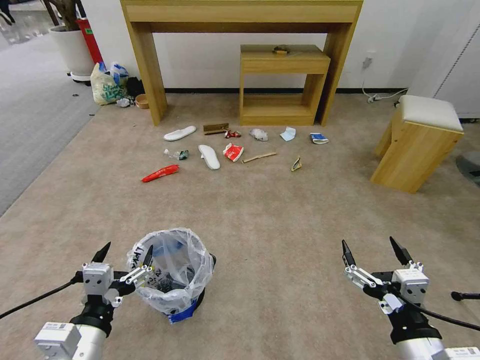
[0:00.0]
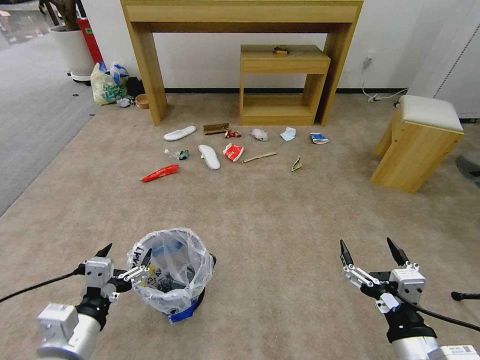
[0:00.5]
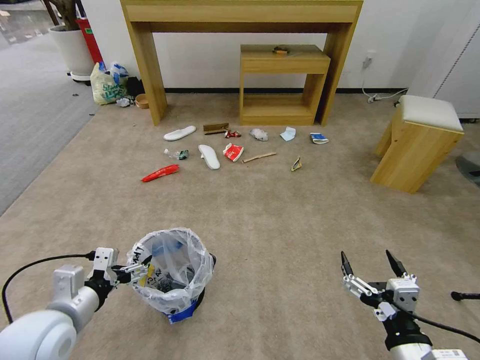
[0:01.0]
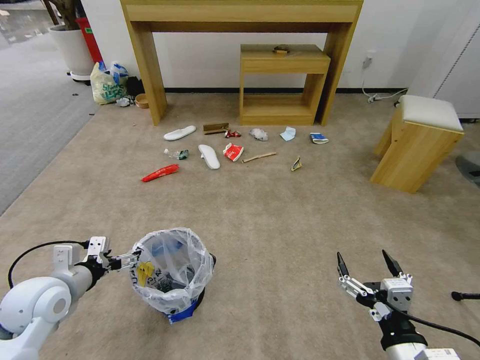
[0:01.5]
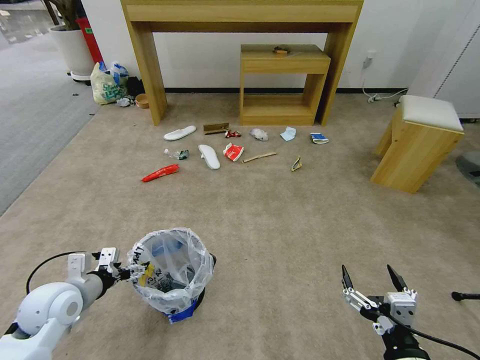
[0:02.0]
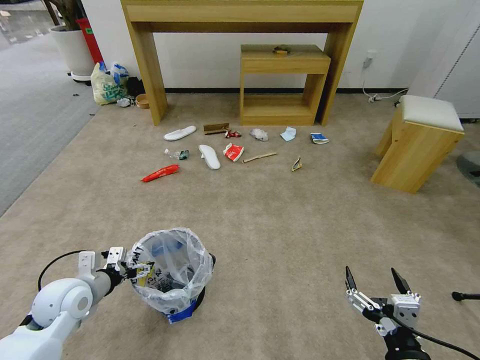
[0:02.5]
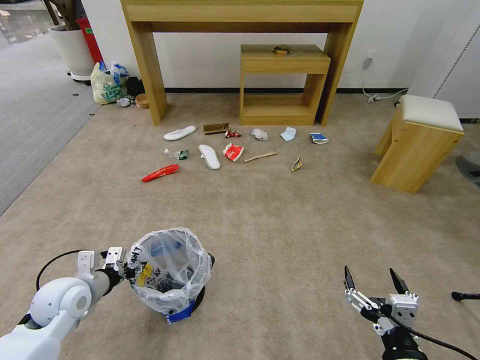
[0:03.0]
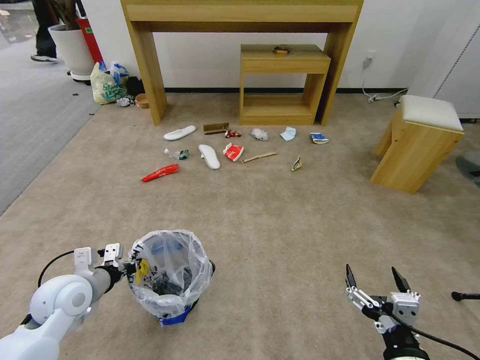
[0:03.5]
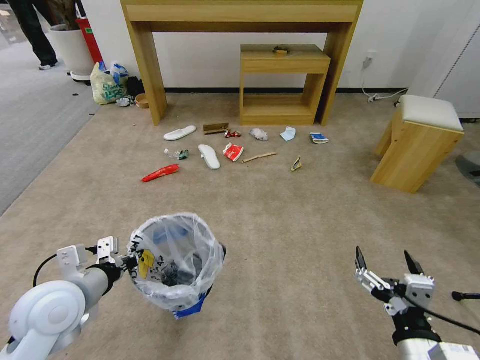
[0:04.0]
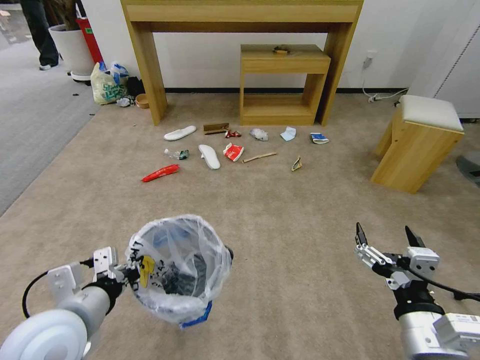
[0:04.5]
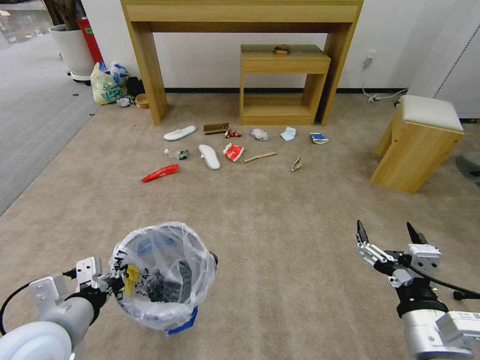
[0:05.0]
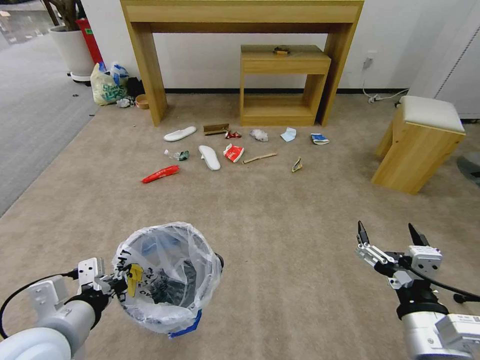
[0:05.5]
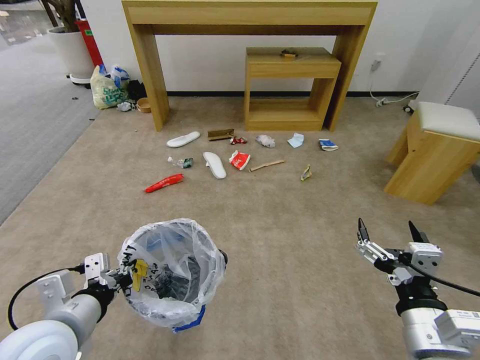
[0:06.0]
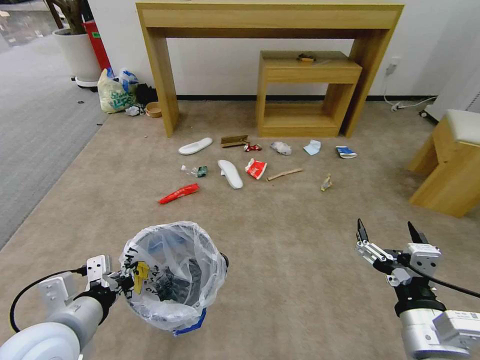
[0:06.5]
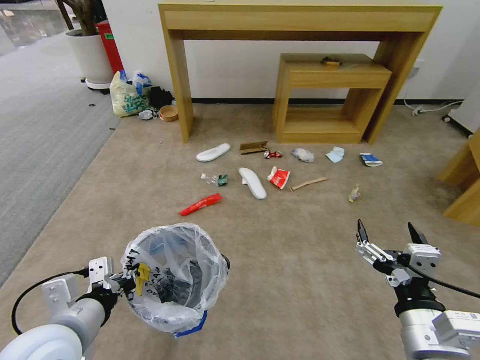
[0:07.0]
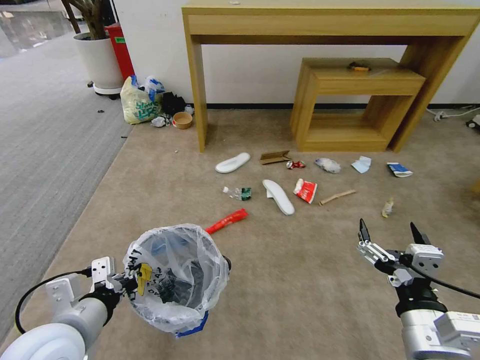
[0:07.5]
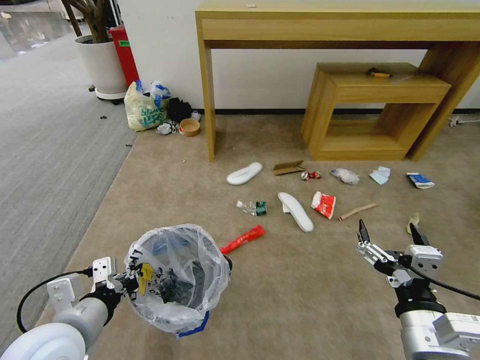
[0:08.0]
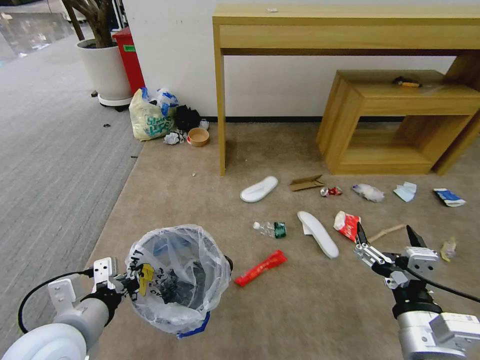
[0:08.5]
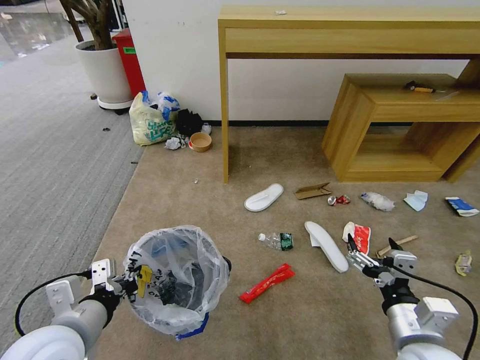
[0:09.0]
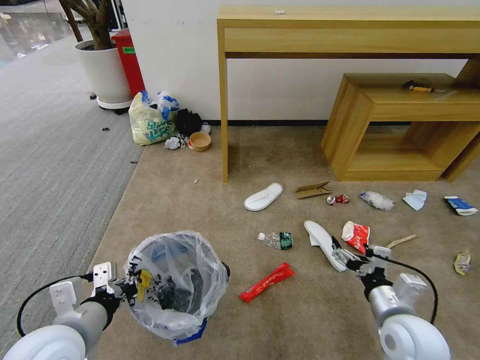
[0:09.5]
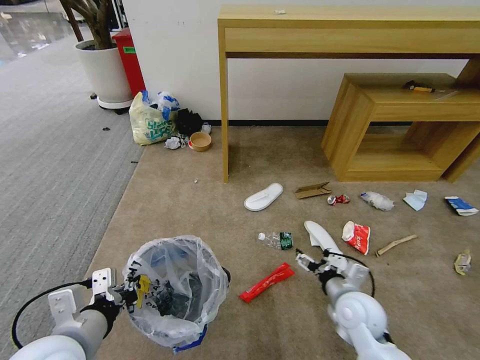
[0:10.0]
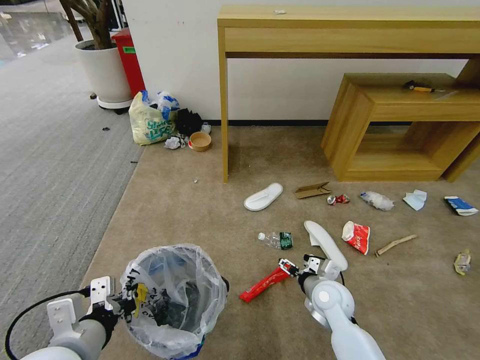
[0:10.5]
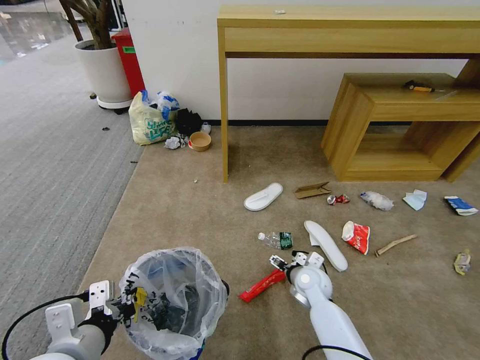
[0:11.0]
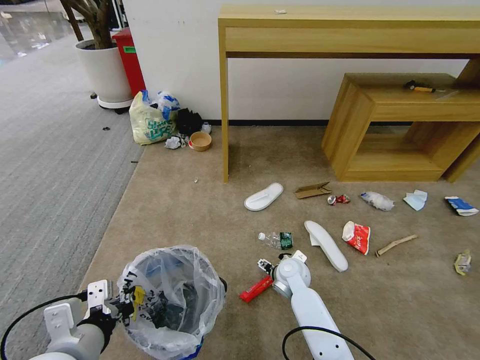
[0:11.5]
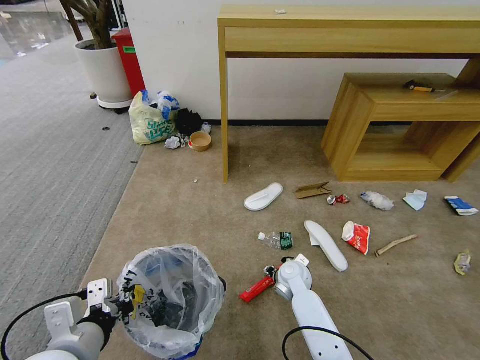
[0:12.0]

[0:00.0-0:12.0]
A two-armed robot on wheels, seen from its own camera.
Task of the whole recording: Pick up the trash bin and place the garbage on the floor into it.
0:02.0 to 0:04.0: The left gripper heads upward and to the right, covering roughly 10 cm, and closes its fingers.
0:04.0 to 0:06.0: The right gripper goes about 5 cm upward, while the left gripper heads backward, covering roughly 5 cm.
0:08.0 to 0:10.0: The right gripper heads forward and downward, covering approximately 20 cm.
0:10.0 to 0:12.0: The right gripper moves forward, to the left and downward, roughly 20 cm, and closes up.

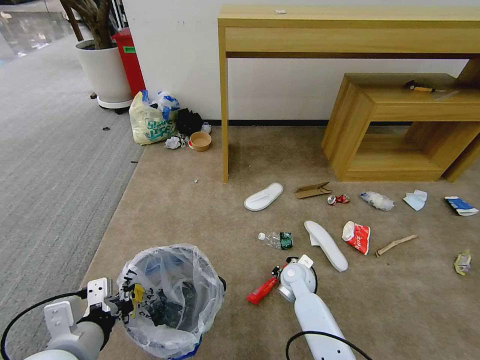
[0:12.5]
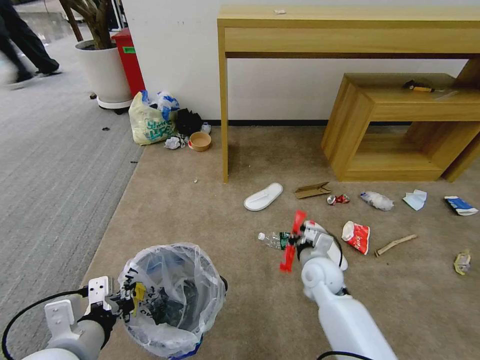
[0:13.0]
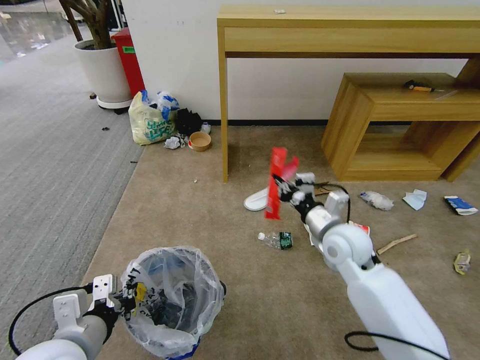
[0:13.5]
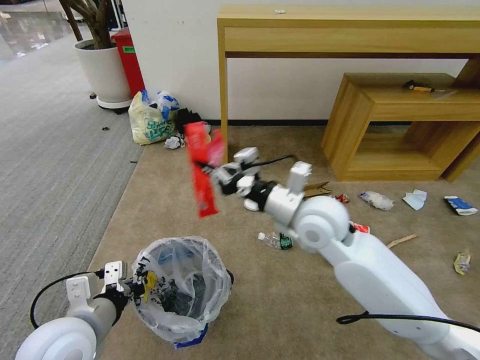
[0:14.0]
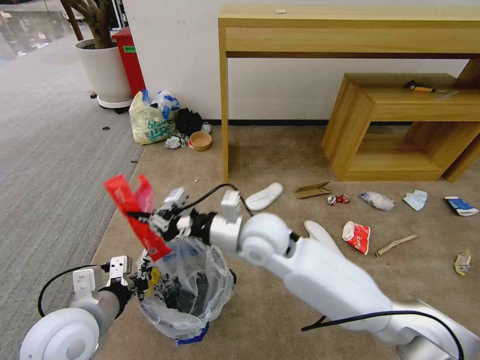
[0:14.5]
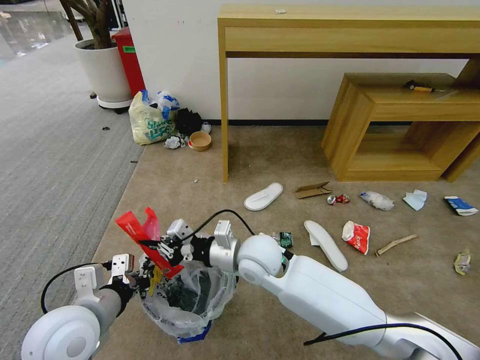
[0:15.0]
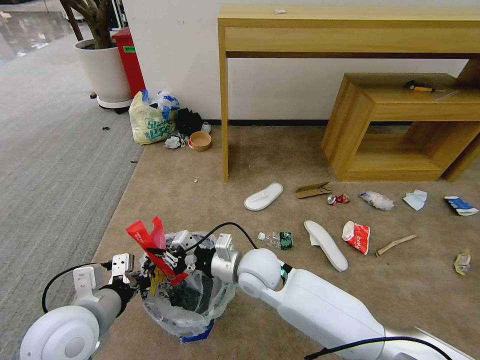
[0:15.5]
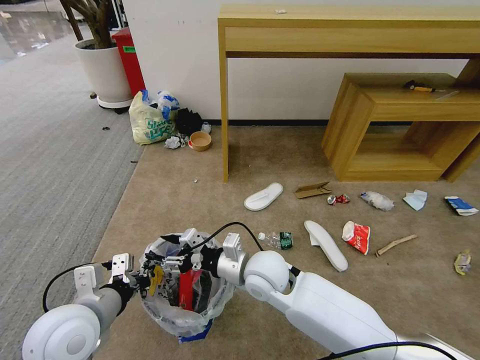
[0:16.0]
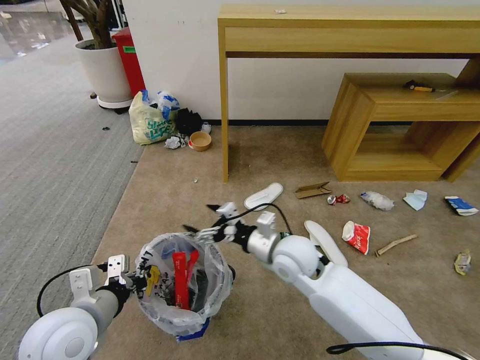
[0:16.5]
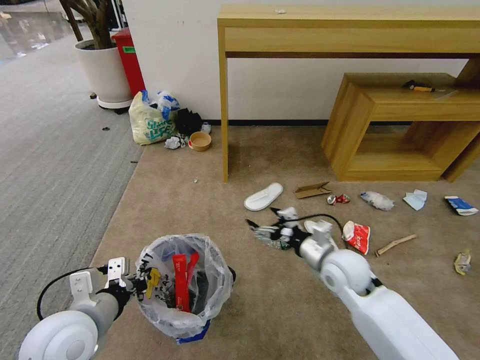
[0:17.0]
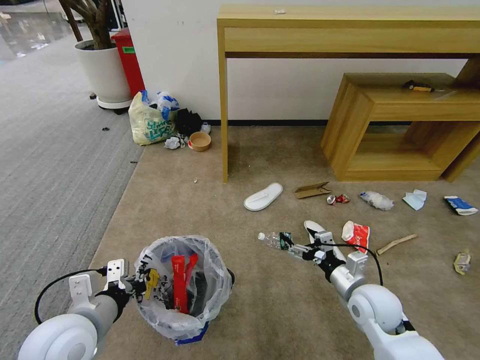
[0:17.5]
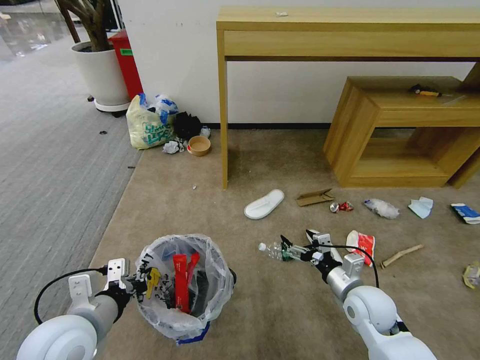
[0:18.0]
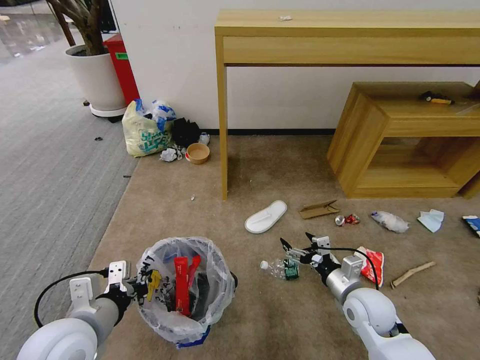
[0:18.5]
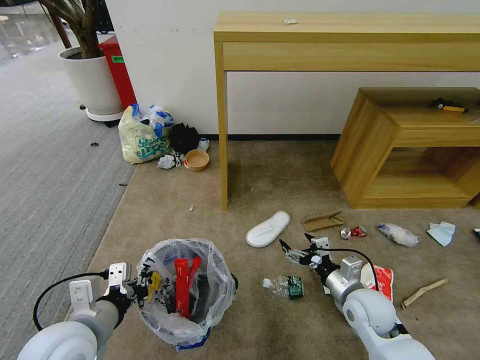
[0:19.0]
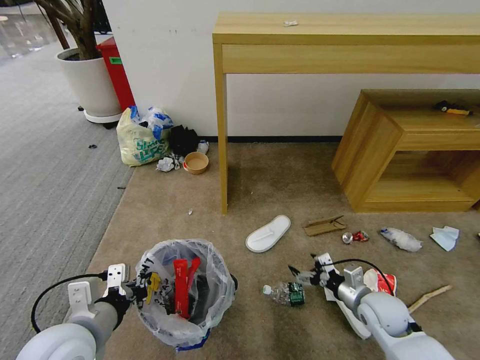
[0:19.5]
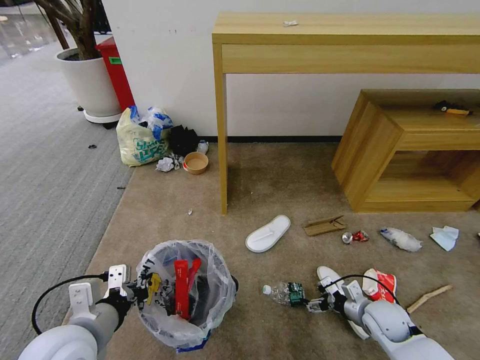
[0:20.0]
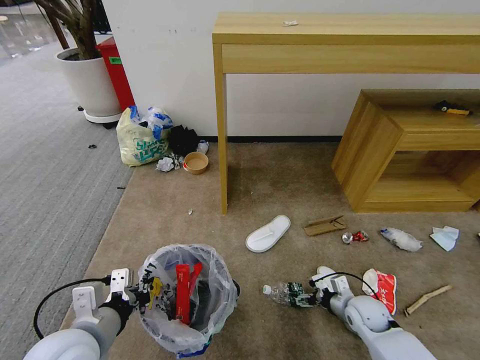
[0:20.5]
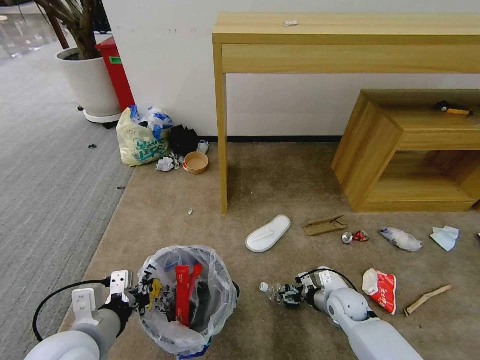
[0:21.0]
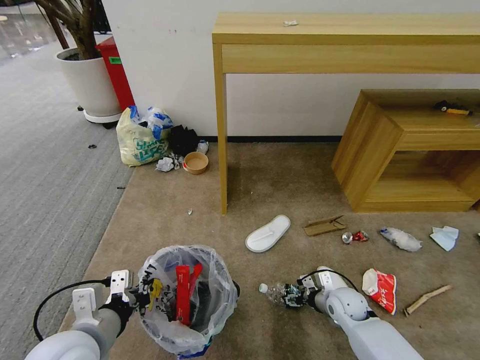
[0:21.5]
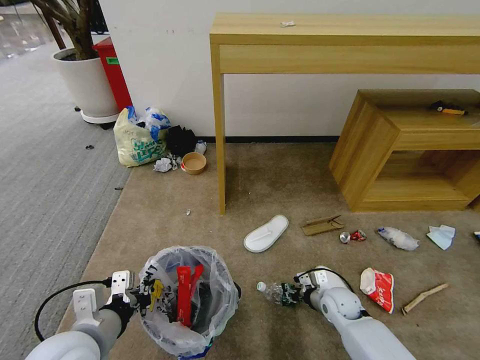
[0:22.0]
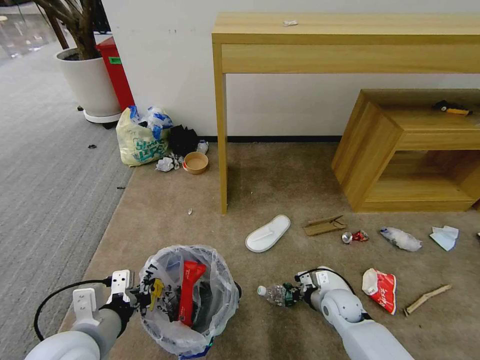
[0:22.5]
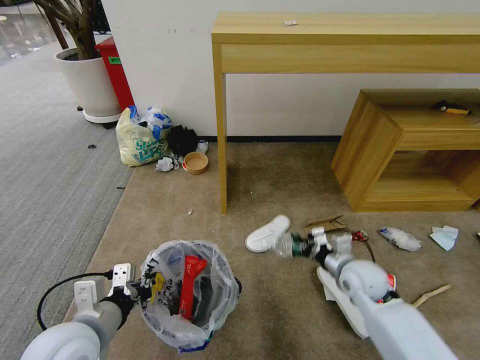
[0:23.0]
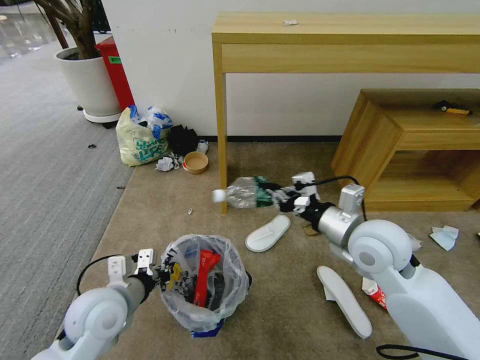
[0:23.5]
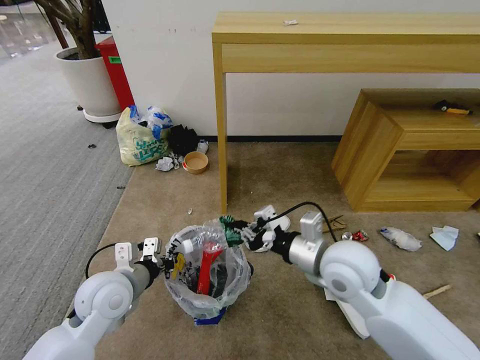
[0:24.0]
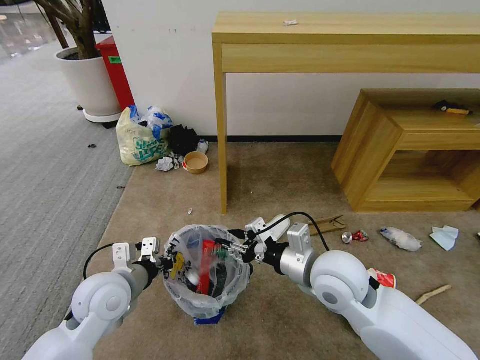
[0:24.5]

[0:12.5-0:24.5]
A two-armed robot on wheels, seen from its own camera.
Task of the whole recording: Pick up the trash bin and place the garbage on the floor into it.
0:12.5 to 0:14.5: The left gripper moves forward, roughly 5 cm. The right gripper shifts roughly 30 cm upward and to the left.
0:14.5 to 0:16.5: The right gripper goes roughly 10 cm downward and to the right, and opens.
0:16.5 to 0:18.5: The right gripper travels to the right and downward by some 20 cm.
0:18.5 to 0:20.5: The right gripper travels downward by some 10 cm.
0:20.5 to 0:22.5: The right gripper goes roughly 5 cm to the left, and closes up.
0:22.5 to 0:24.5: The right gripper shifts roughly 30 cm upward and to the left, and opens. Meanwhile the left gripper goes approximately 10 cm forward.

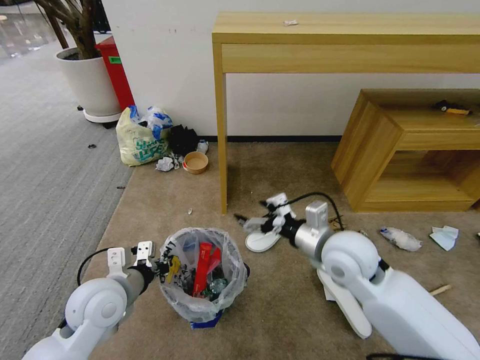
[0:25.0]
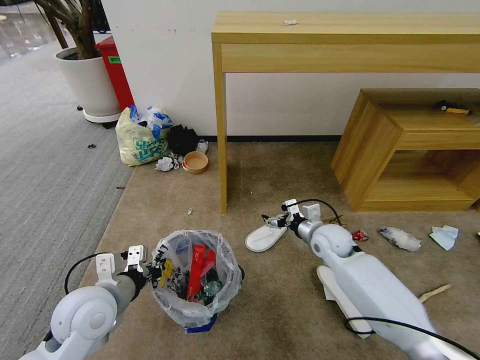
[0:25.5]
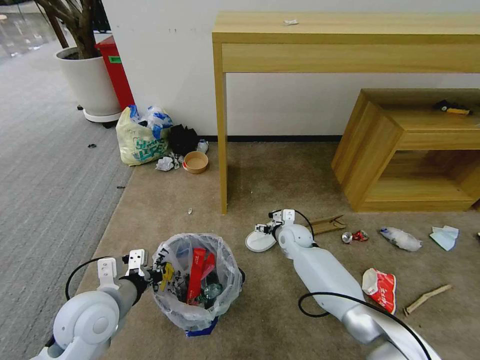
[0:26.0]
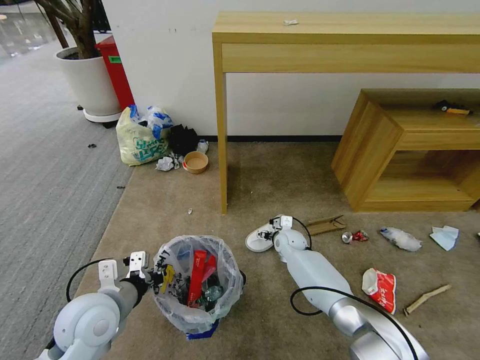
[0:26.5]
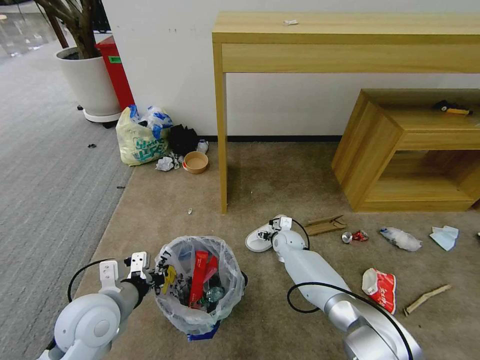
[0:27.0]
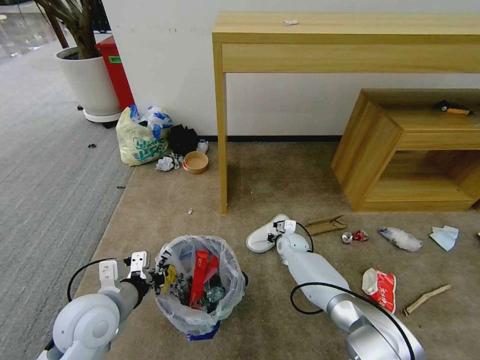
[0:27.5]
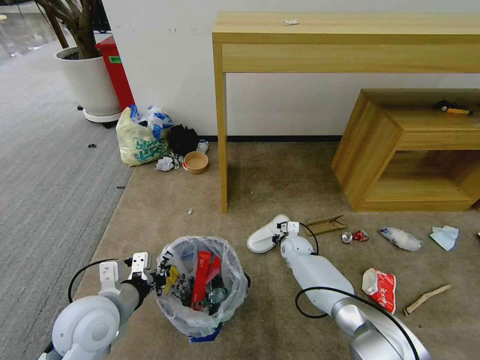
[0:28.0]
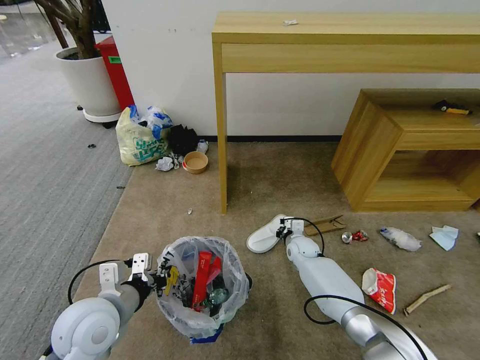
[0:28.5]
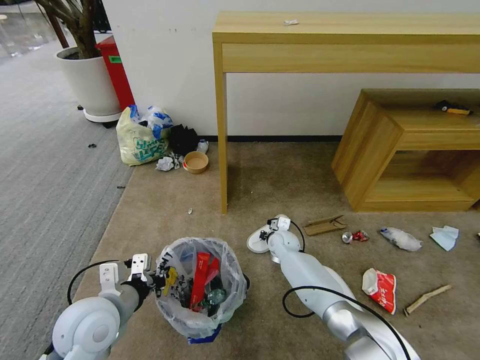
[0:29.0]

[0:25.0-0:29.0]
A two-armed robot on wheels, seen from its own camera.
Task of the whole recording: Pick up the trash bin and place the garbage on the floor into it.
0:25.0 to 0:27.0: The right gripper moves downward and forward, approximately 30 cm.
0:27.0 to 0:29.0: The right gripper closes.
